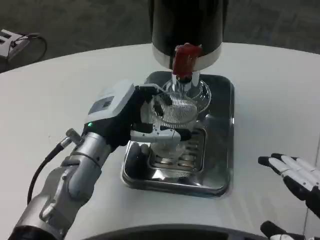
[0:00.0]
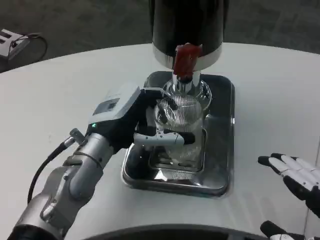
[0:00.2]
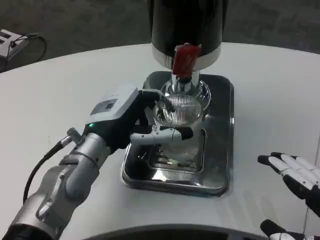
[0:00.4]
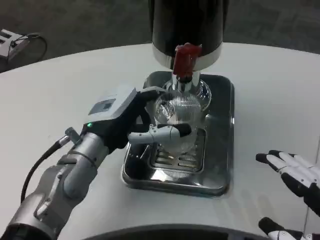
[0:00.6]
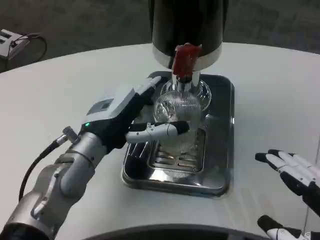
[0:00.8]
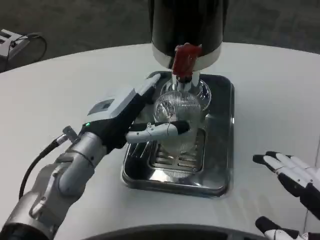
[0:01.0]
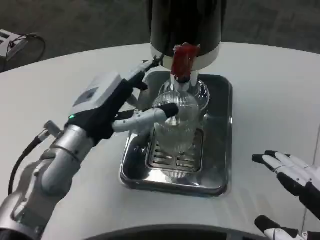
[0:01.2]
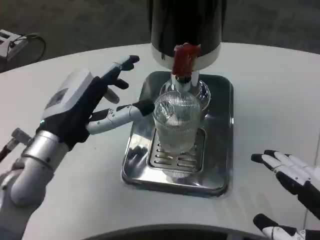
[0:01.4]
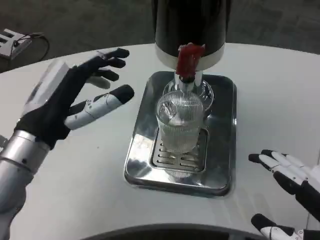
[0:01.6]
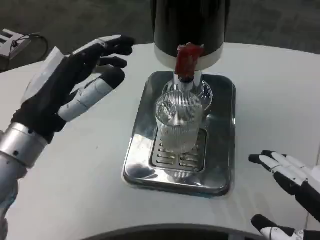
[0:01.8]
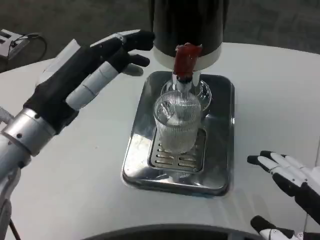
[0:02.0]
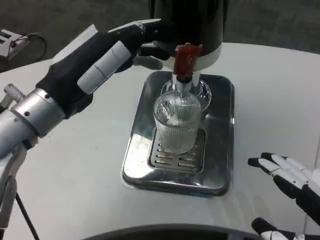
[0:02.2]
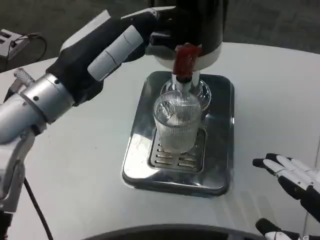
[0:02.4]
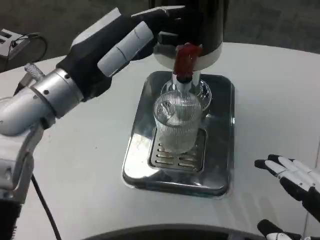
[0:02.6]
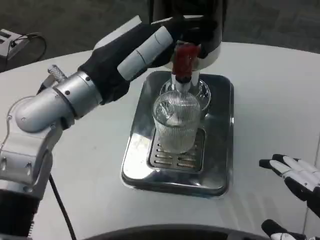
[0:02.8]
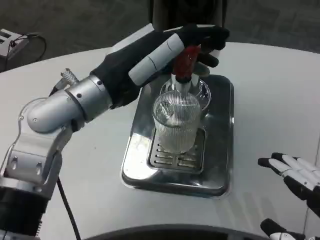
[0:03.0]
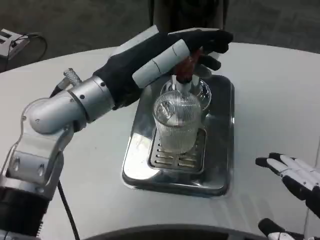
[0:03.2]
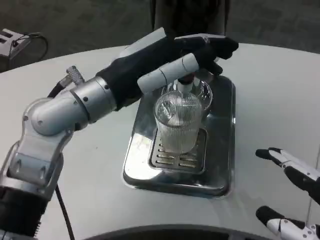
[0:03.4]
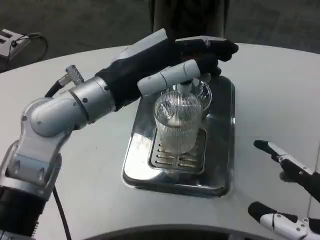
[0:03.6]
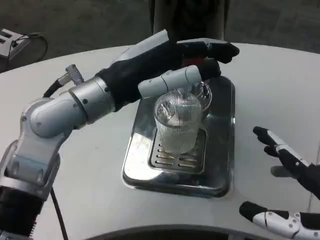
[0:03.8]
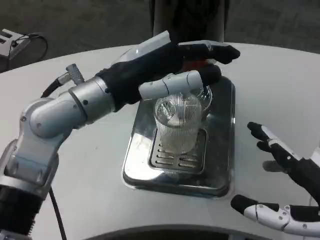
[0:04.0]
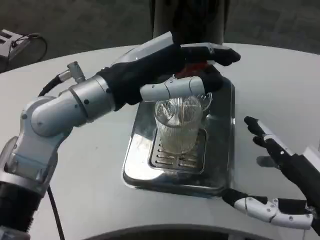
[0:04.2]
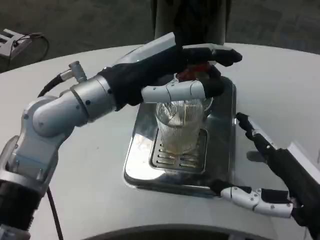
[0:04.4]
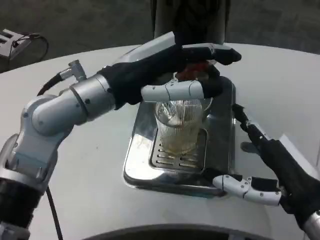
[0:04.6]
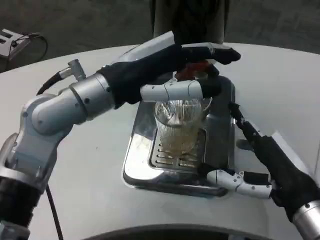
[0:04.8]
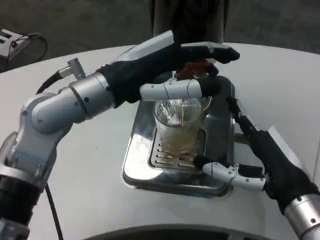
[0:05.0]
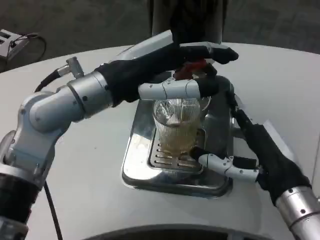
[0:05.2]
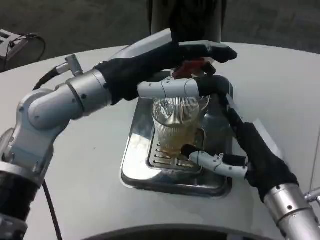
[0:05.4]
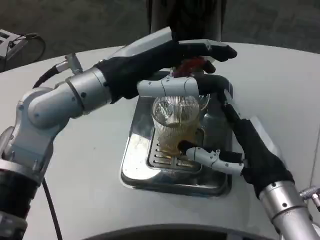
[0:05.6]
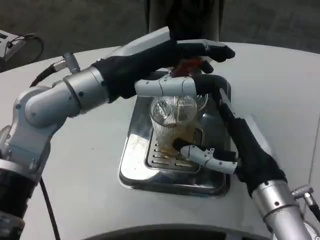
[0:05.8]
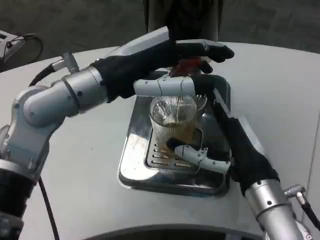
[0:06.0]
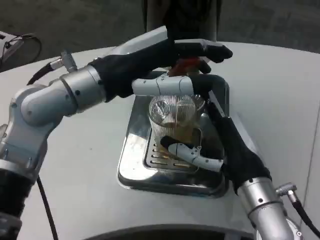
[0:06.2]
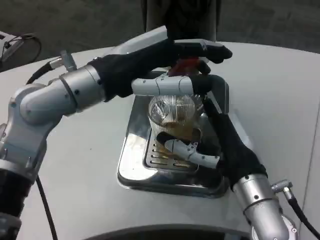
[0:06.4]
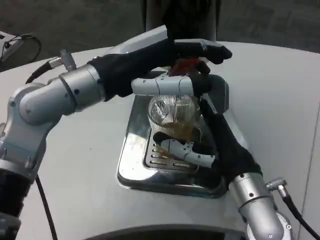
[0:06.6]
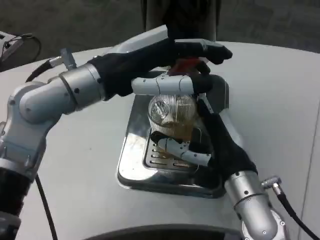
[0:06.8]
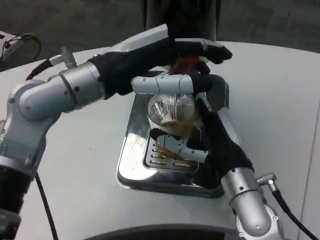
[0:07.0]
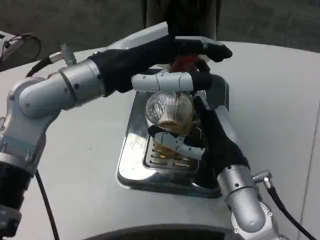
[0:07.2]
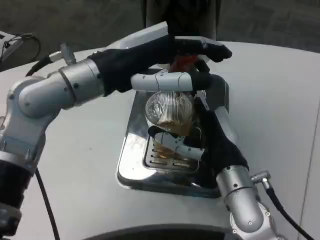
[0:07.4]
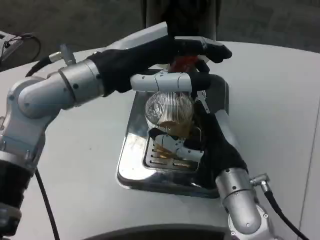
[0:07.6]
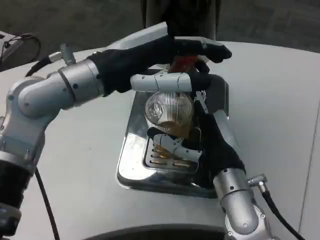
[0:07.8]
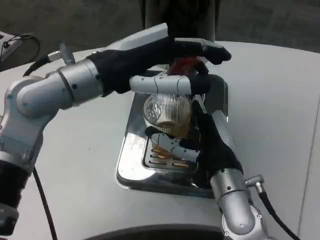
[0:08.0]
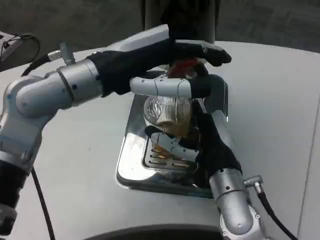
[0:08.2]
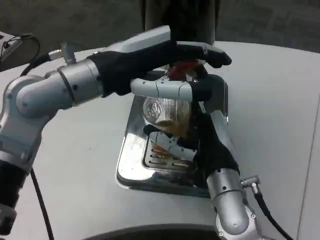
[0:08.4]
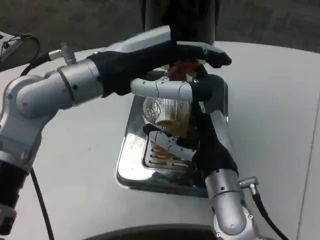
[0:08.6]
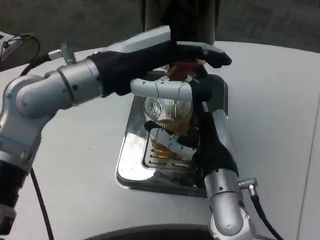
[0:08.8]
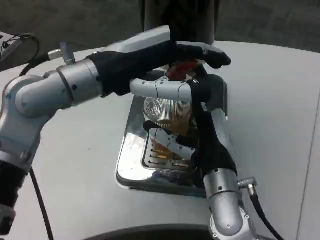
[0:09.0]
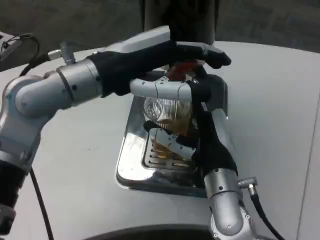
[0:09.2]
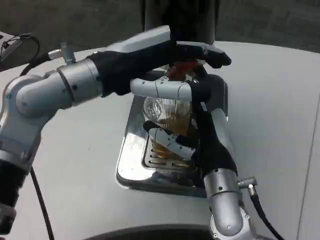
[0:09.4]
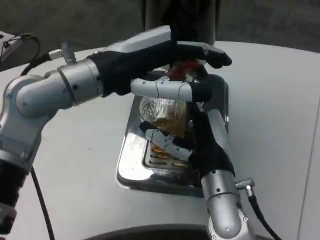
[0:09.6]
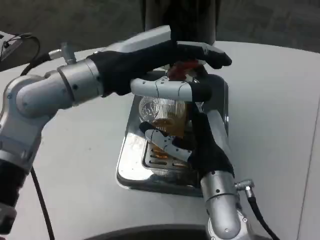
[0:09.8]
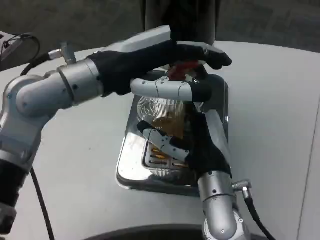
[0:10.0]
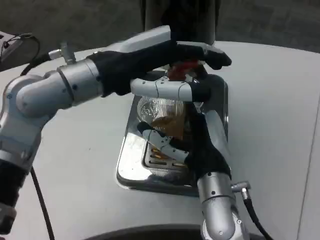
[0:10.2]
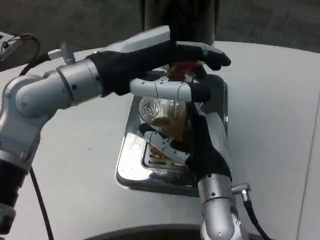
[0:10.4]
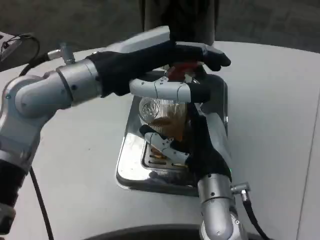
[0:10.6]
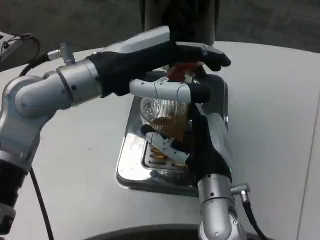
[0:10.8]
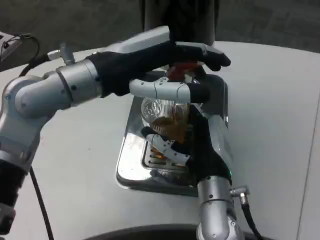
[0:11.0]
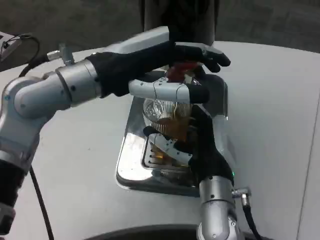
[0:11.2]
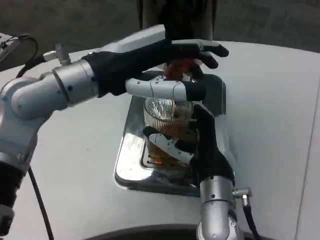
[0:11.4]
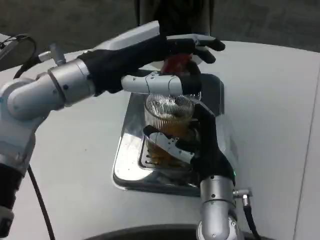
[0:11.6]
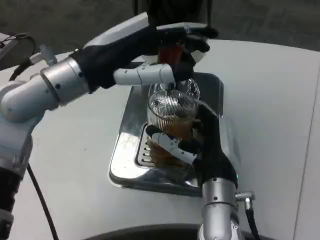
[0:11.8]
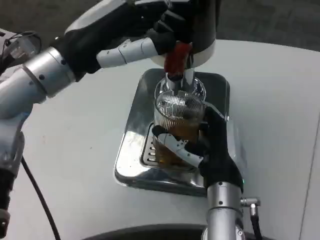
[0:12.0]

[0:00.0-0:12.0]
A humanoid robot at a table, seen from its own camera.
Task of the whole recording: Grasp the cup under the faucet to collect the drink, then remove the cup.
0:00.0 to 0:01.6: The left hand travels to the left and backward by roughly 10 cm.
0:01.6 to 0:03.0: The left hand is displaced upward and to the right by some 10 cm.
0:03.0 to 0:04.4: The right hand moves forward, roughly 5 cm.
0:04.4 to 0:06.0: The right hand goes roughly 10 cm forward and to the left.
0:06.0 to 0:07.6: The right hand changes place by approximately 5 cm.
0:07.6 to 0:09.0: There are only small adjustments of the hands.
0:09.0 to 0:10.4: Both hands stay put.

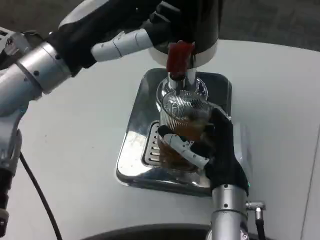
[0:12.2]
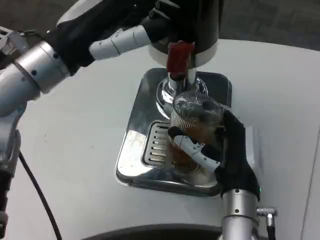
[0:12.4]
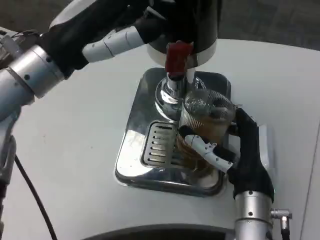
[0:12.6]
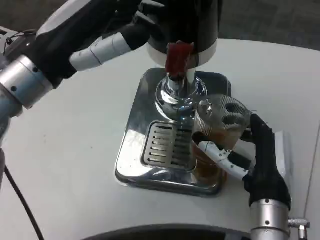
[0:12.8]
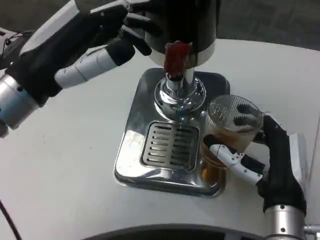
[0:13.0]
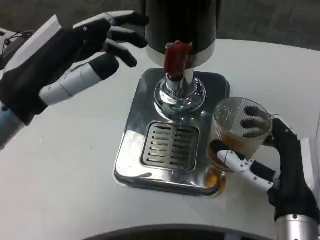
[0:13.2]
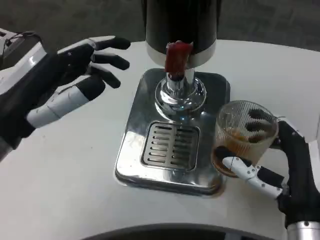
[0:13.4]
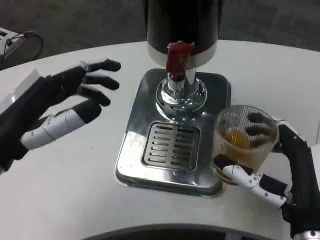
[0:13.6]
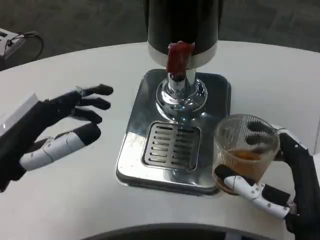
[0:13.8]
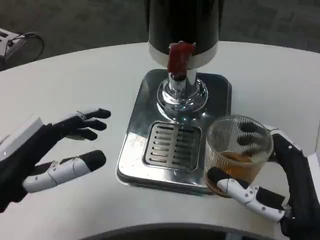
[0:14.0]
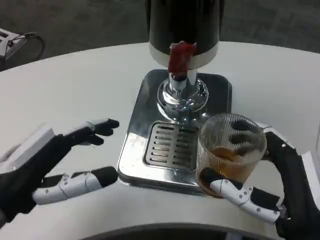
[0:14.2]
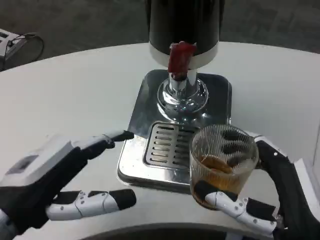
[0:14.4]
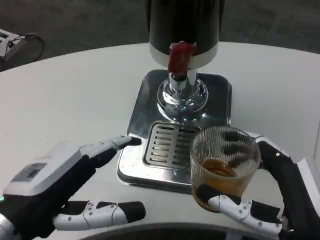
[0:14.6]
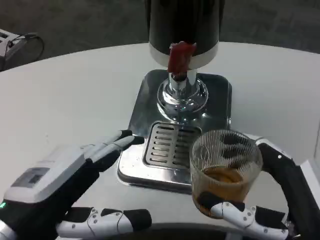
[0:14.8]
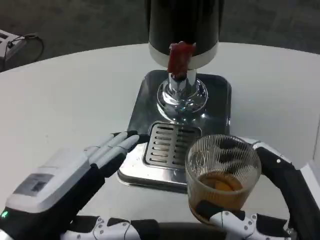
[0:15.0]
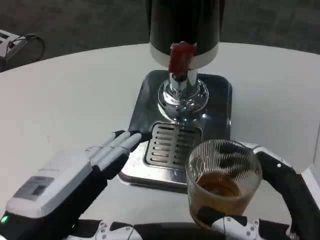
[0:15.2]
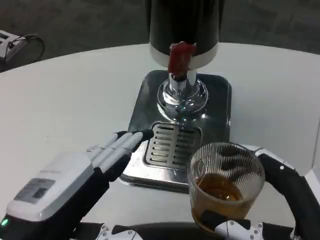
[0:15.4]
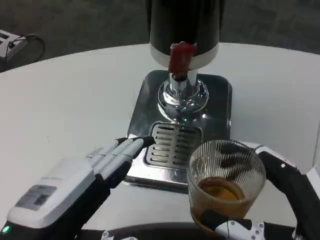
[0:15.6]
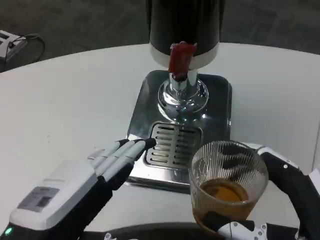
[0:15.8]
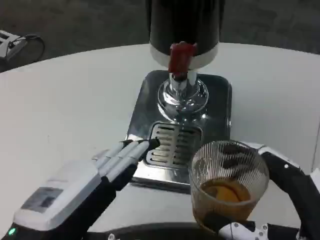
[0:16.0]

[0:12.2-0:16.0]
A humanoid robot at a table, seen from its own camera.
Task of the whole recording: Grasp the cup under the faucet to collect the drink, then remove the cup.
0:12.2 to 0:13.4: The left hand shifts roughly 10 cm backward and downward. The right hand moves to the right and backward, approximately 10 cm.
0:13.4 to 0:14.8: The right hand moves backward, roughly 5 cm. Meanwhile the left hand is displaced backward and downward by some 10 cm.

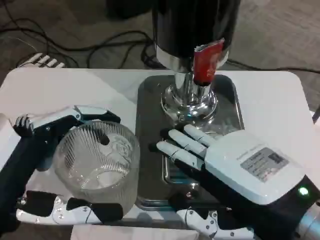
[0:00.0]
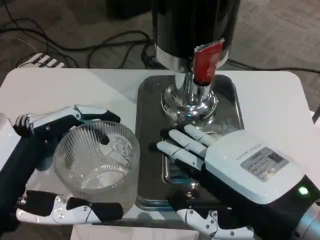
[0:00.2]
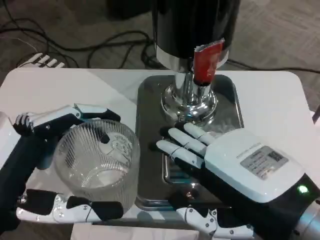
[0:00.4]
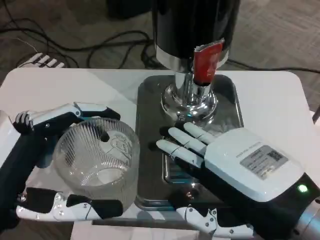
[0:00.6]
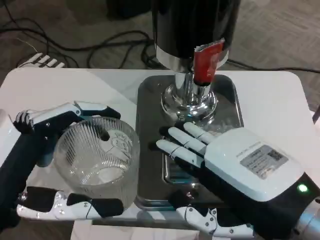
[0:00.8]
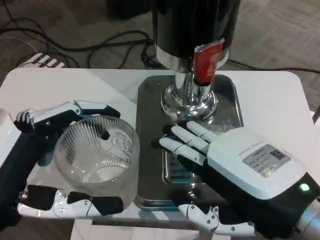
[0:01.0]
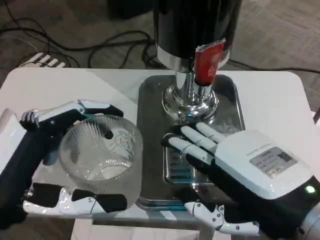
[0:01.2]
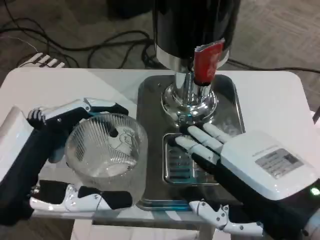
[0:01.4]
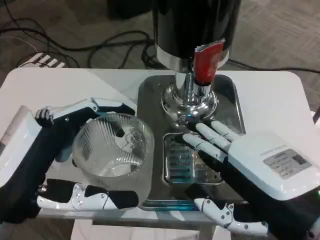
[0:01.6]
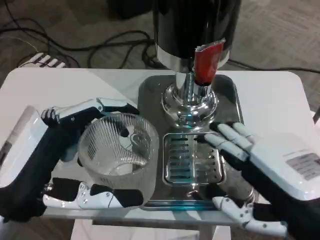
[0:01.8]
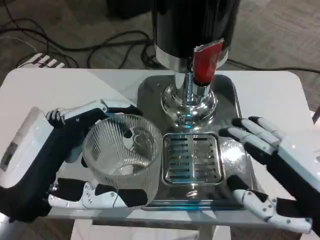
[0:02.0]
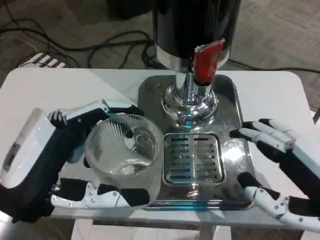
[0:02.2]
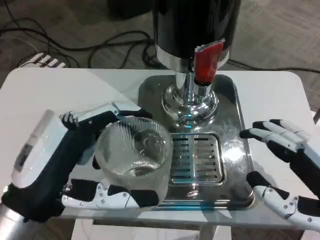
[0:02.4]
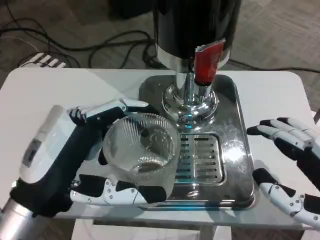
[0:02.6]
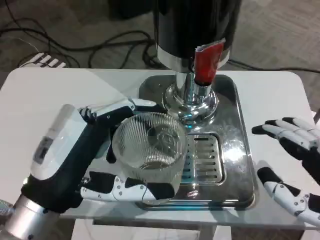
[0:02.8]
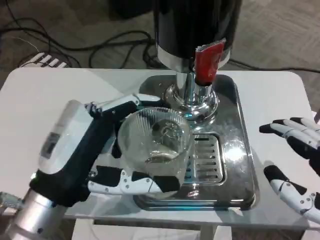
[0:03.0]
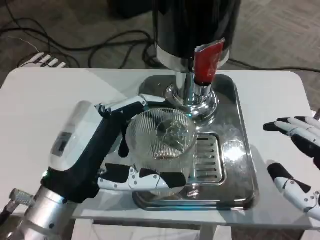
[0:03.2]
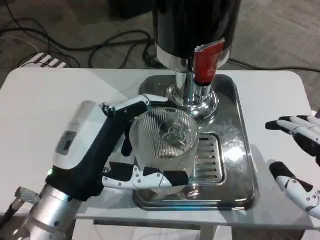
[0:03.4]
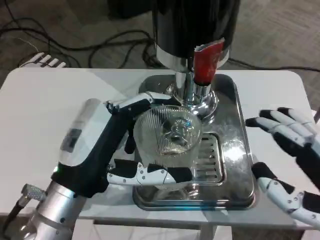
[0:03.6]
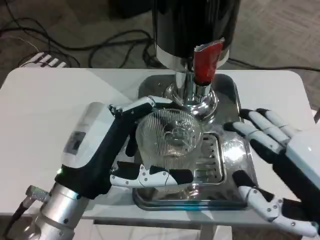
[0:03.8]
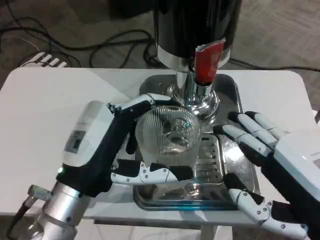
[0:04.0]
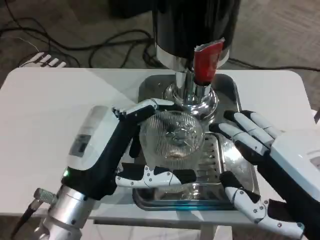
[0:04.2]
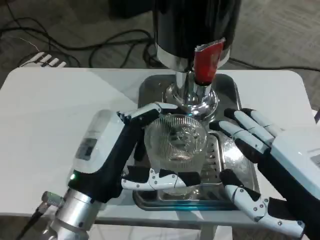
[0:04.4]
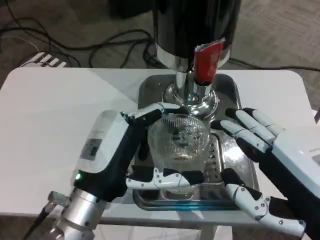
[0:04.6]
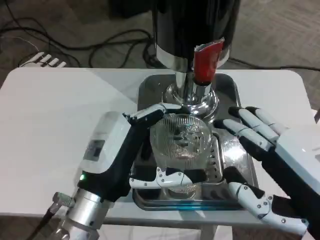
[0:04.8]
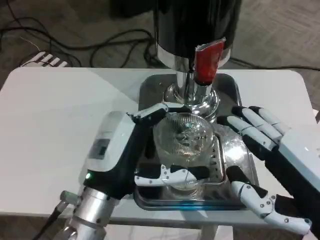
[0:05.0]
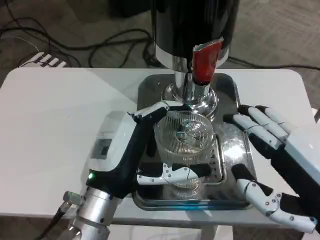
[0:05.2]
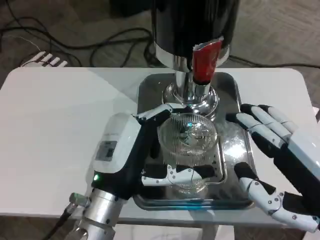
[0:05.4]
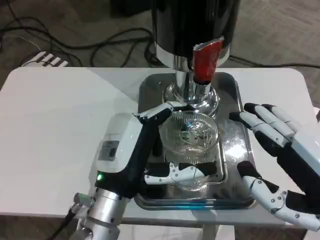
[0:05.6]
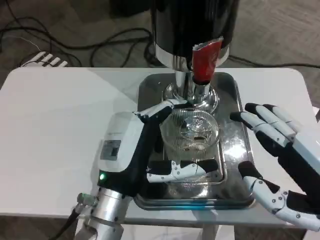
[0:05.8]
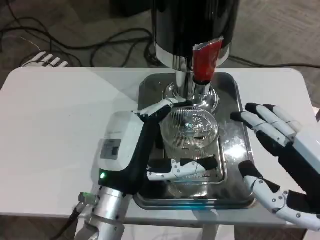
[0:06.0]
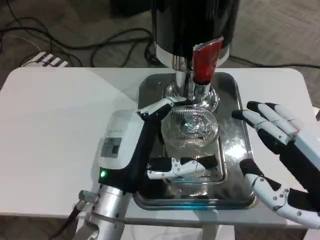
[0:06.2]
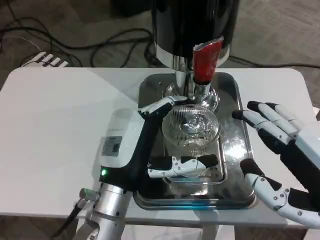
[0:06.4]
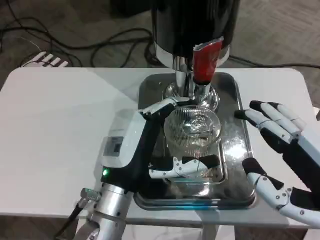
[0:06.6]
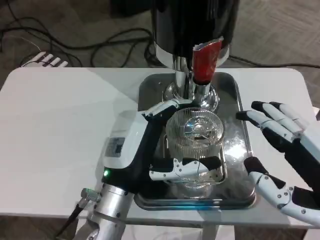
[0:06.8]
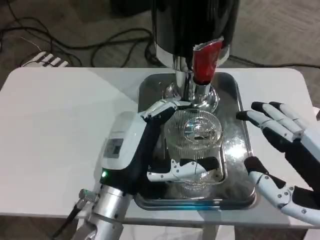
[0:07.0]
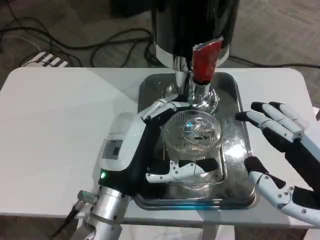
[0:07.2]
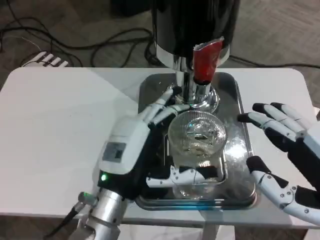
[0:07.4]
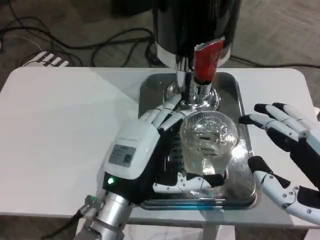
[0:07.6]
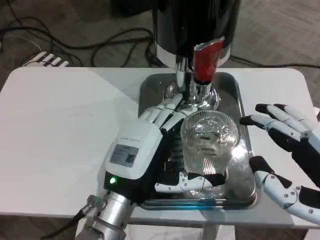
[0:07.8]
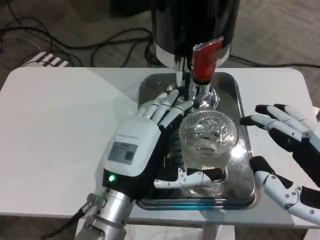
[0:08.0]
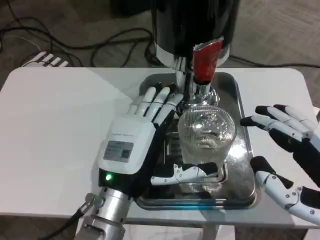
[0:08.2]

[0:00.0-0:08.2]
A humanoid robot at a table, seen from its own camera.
Task of the whole recording: Grasp the cup under the faucet to collect the drink, then remove the cup.
0:01.6 to 0:03.2: Both hands move to the right, approximately 5 cm.
0:03.2 to 0:05.0: The left hand changes place by roughly 5 cm.
